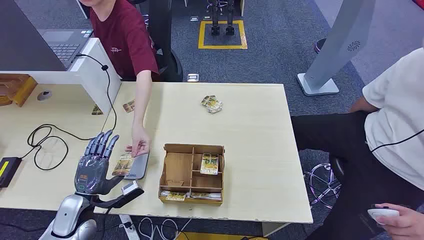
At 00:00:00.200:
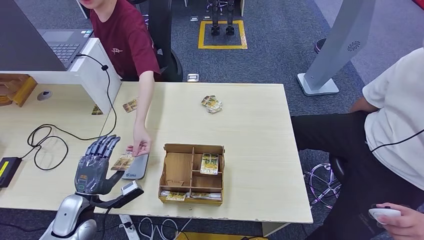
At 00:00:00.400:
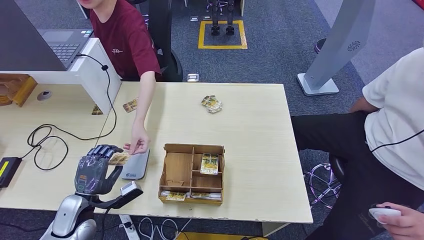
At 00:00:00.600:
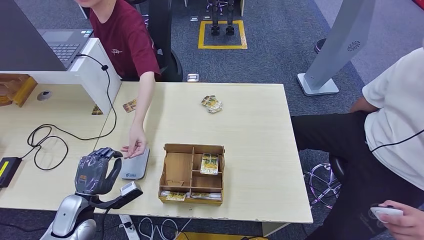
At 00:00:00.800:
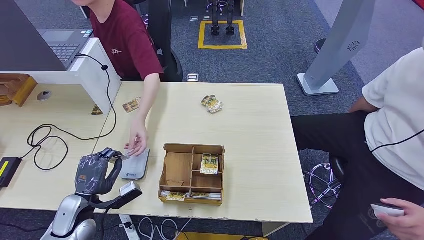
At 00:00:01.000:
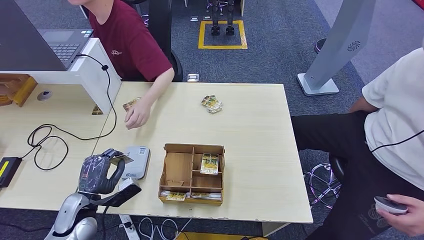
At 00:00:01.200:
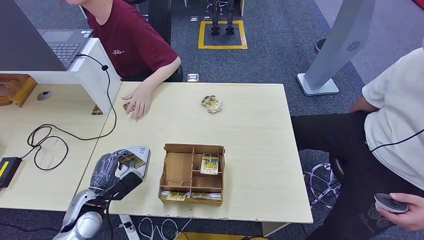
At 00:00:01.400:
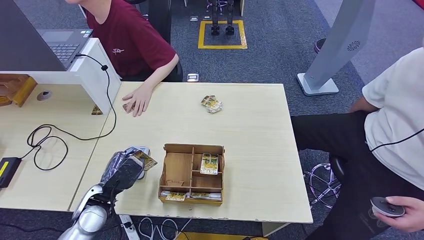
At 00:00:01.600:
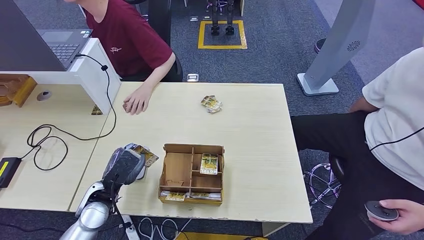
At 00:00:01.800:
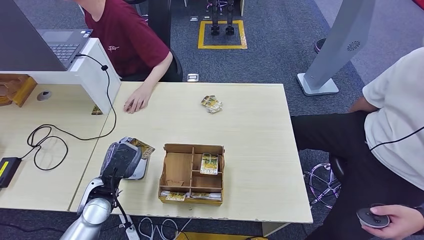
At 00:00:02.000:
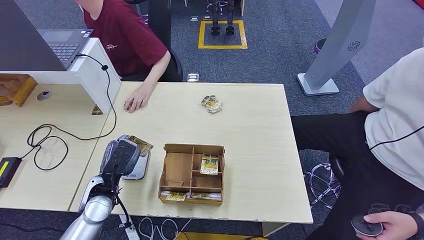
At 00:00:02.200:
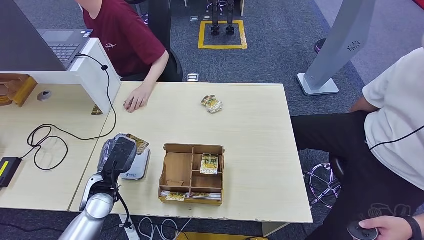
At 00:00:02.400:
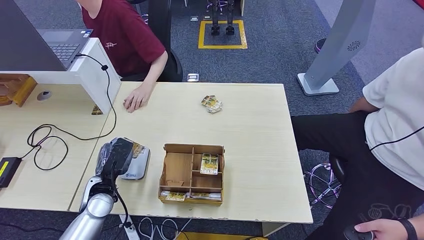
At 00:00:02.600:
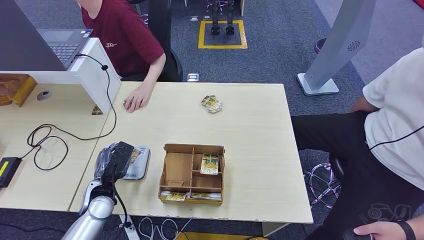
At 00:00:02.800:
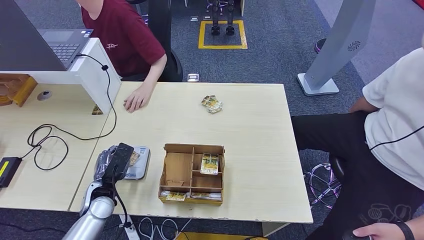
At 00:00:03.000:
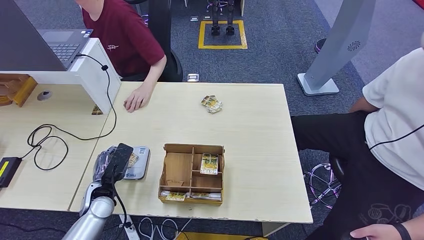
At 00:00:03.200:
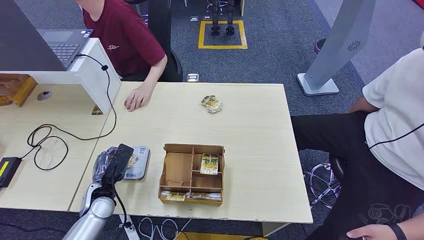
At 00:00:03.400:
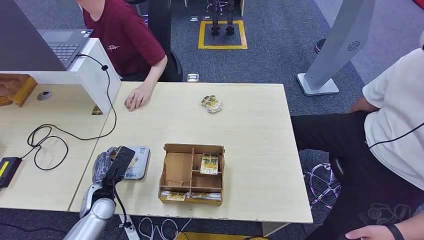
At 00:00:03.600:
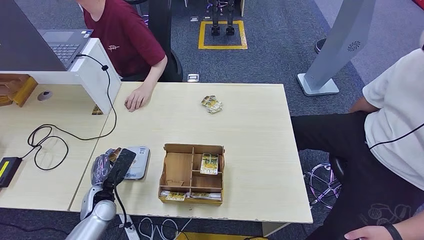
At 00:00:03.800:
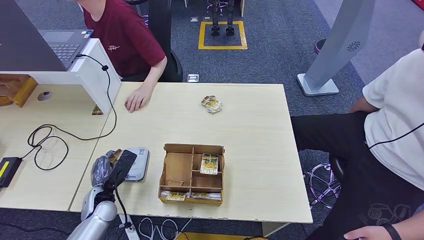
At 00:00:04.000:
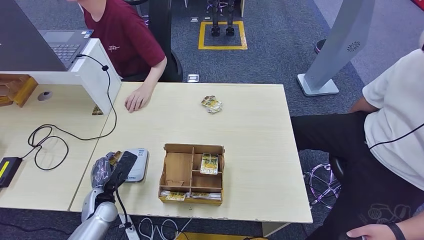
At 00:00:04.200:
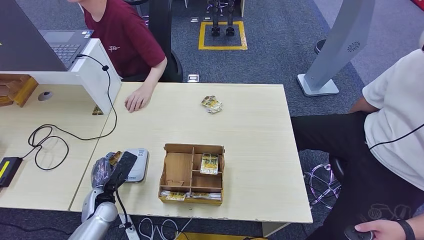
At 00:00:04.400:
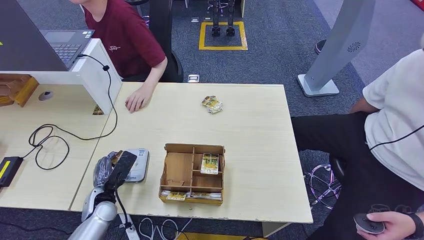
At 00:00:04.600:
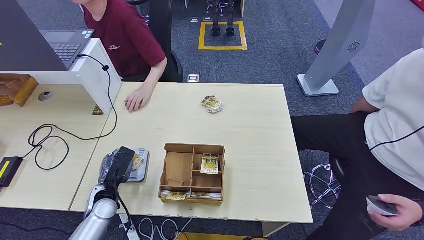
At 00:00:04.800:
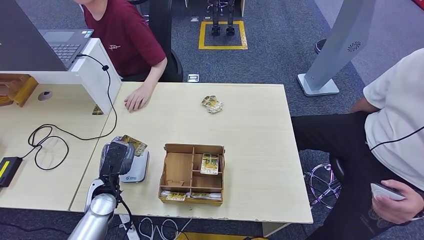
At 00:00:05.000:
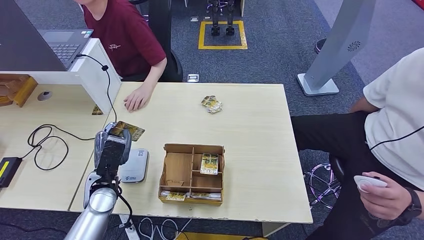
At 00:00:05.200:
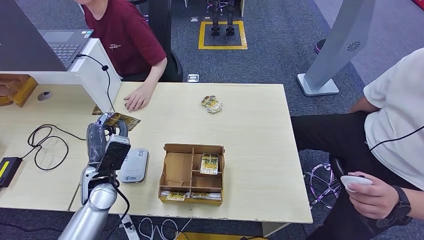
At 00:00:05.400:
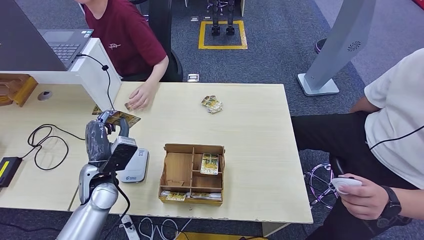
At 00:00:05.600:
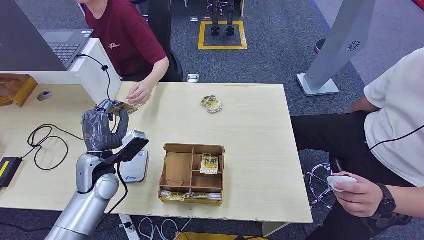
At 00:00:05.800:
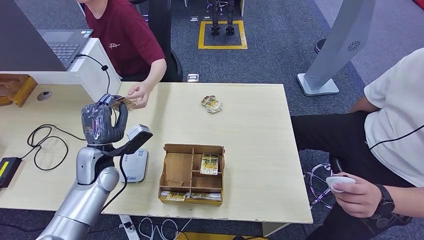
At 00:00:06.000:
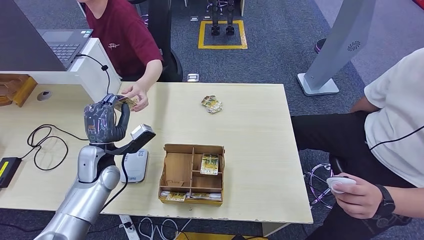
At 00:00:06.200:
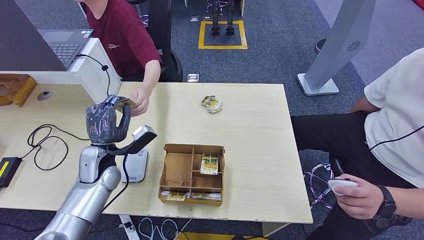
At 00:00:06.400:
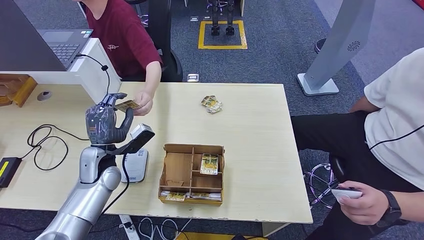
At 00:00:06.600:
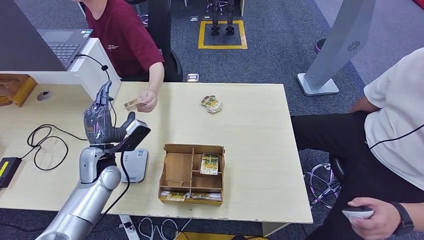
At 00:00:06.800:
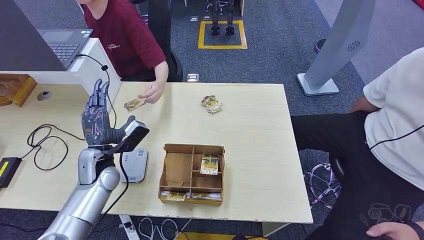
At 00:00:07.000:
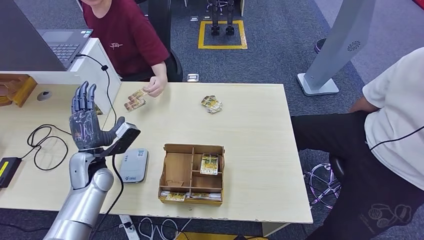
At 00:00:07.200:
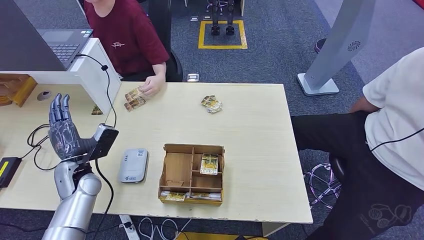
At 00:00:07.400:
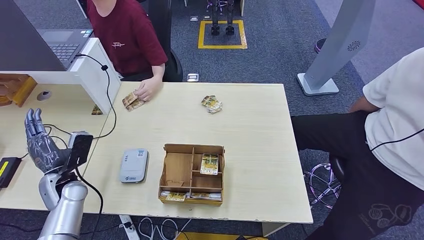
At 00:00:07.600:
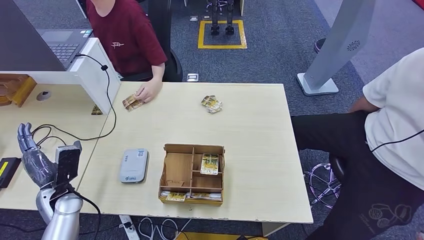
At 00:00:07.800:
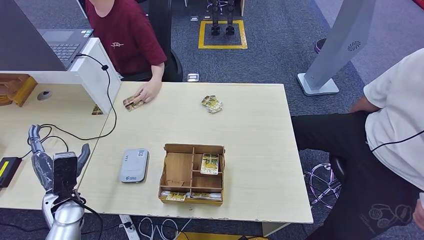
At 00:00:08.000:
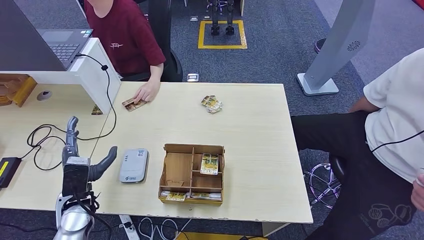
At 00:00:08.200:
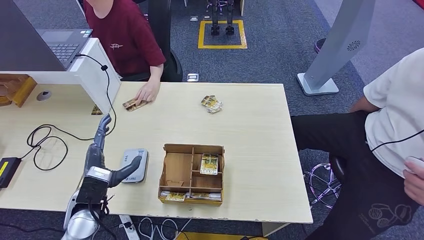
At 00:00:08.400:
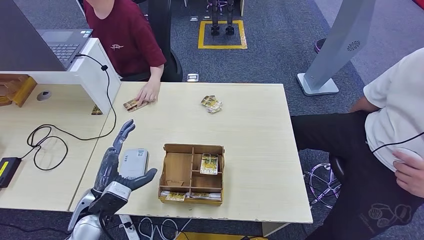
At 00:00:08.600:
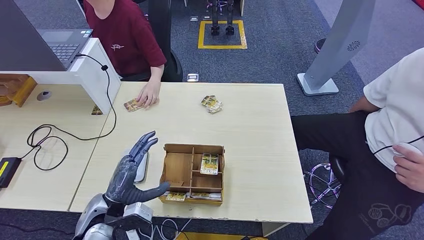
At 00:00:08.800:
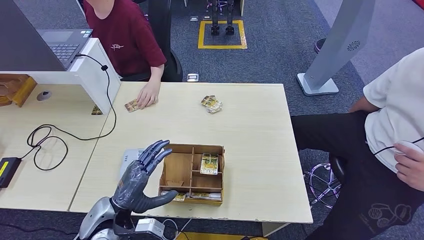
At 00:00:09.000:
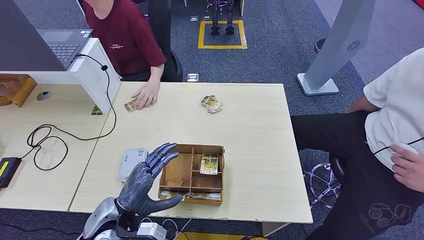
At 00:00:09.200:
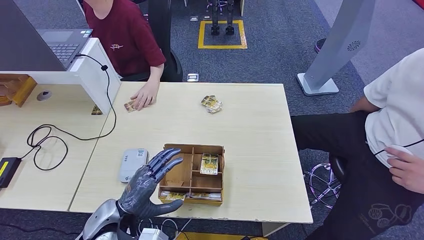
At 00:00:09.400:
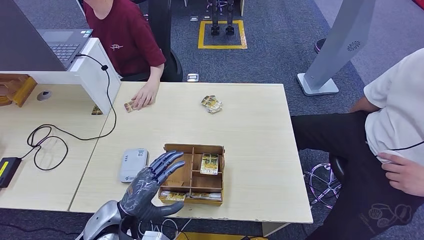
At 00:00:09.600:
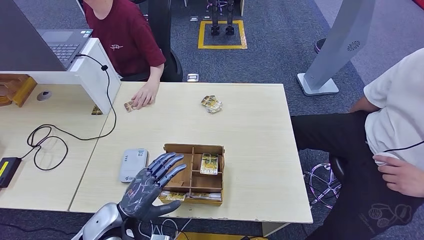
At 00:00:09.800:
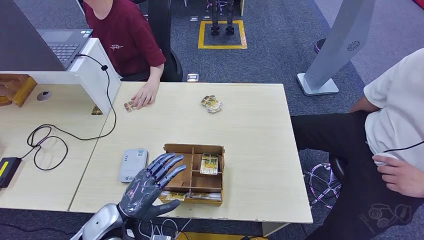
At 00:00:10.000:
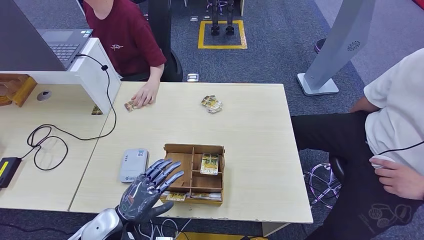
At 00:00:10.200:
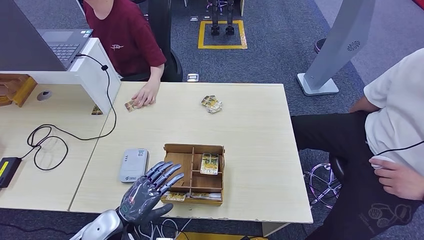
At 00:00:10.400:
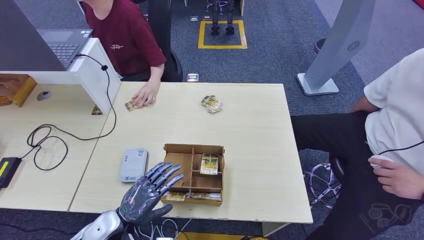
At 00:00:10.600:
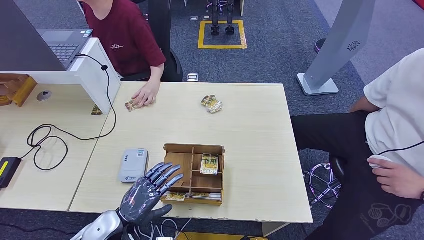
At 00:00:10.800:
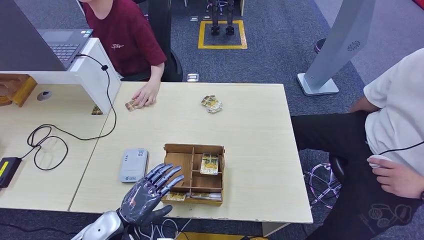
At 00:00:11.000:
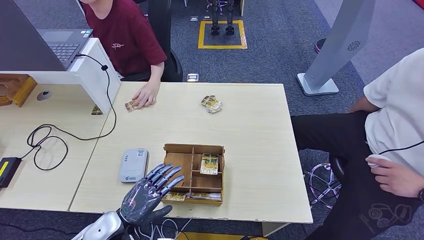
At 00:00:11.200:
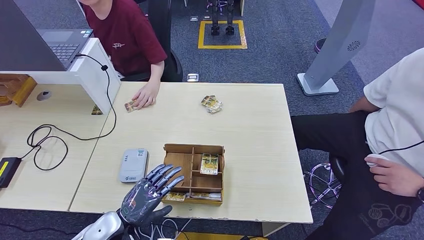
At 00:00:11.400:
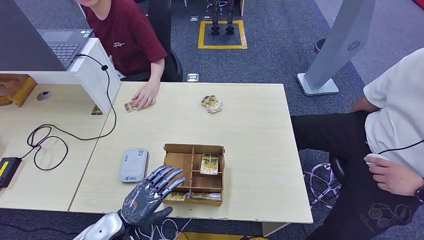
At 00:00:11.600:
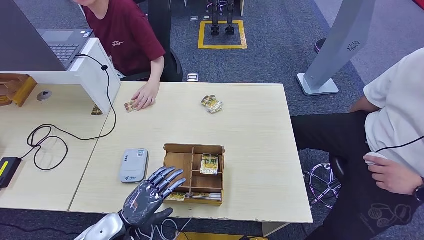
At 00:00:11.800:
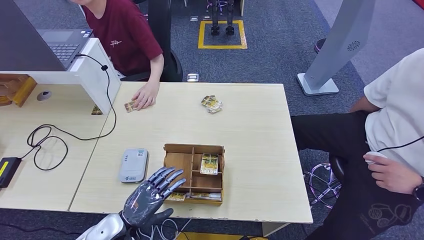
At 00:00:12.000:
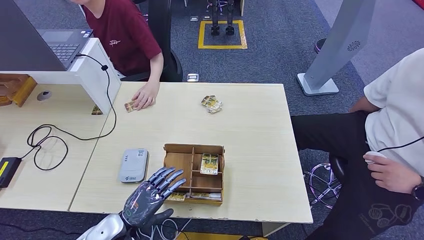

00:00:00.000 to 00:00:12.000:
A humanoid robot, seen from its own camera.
Step, 00:00:00.000 to 00:00:00.800: Take the ID card from the person's hand.
Step, 00:00:01.600 to 00:00:03.400: Place the ID card on the card reader.
Step, 00:00:04.800 to 00:00:07.000: Hand the ID card to the person.
00:00:01.600 to 00:00:03.000: The left hand changes place by about 5 cm.
00:00:03.000 to 00:00:04.400: There are only small adjustments of the hands.
00:00:04.400 to 00:00:06.000: The left hand goes approximately 15 cm upward and forward.
00:00:06.000 to 00:00:07.600: The left hand heads to the left, backward and downward, covering about 15 cm.
00:00:07.600 to 00:00:09.000: The left hand heads to the right, covering about 15 cm.
00:00:10.400 to 00:00:12.000: Both hands stay put.

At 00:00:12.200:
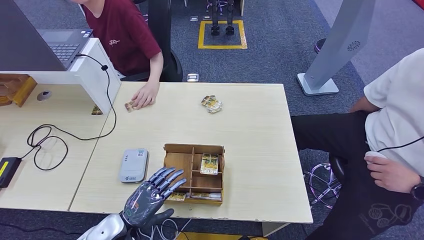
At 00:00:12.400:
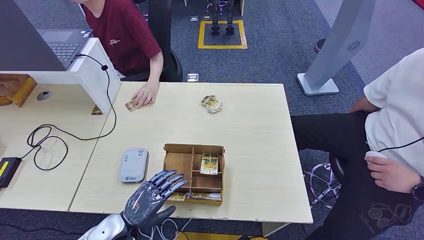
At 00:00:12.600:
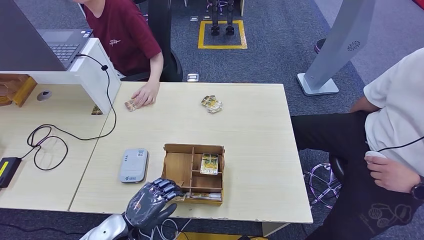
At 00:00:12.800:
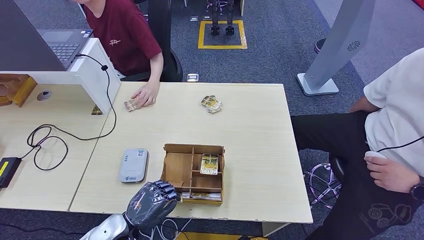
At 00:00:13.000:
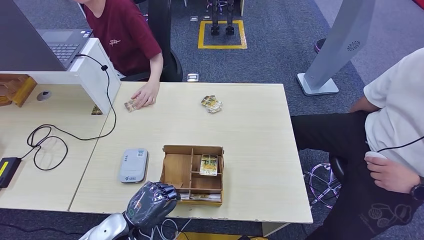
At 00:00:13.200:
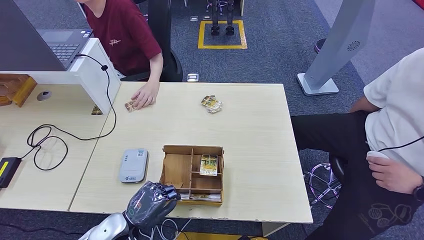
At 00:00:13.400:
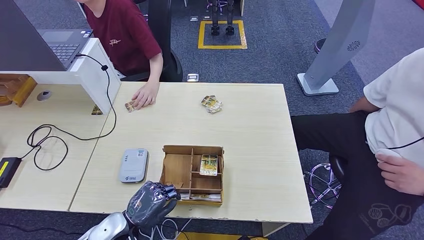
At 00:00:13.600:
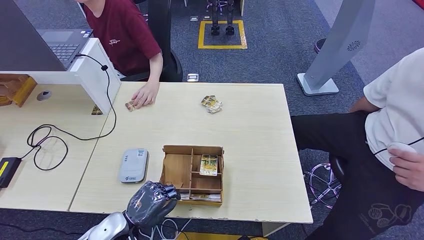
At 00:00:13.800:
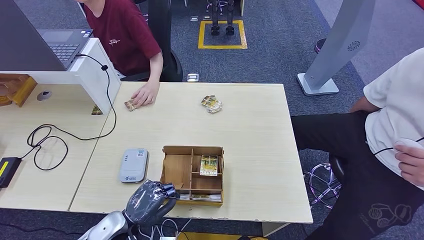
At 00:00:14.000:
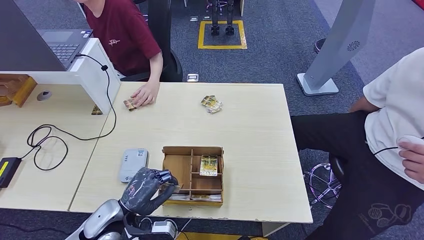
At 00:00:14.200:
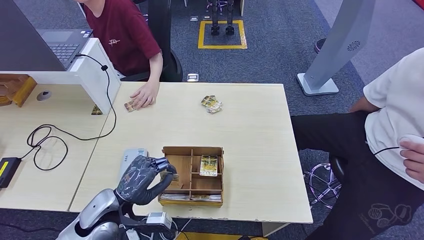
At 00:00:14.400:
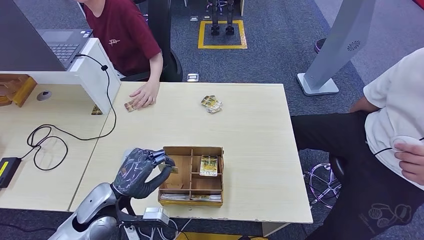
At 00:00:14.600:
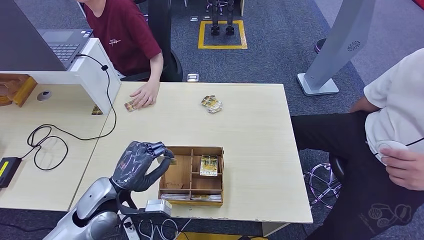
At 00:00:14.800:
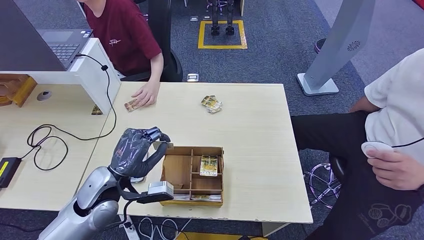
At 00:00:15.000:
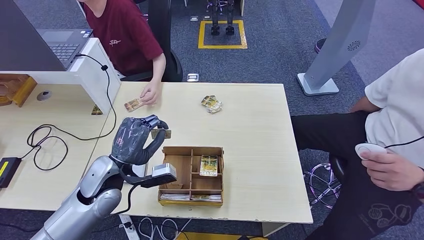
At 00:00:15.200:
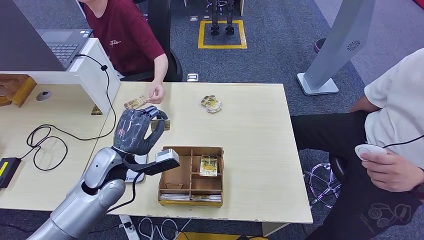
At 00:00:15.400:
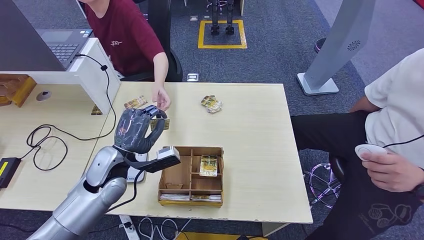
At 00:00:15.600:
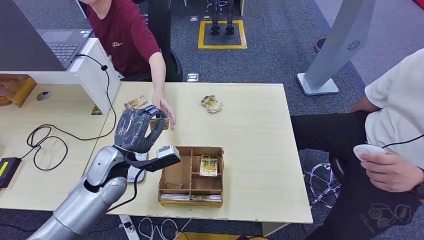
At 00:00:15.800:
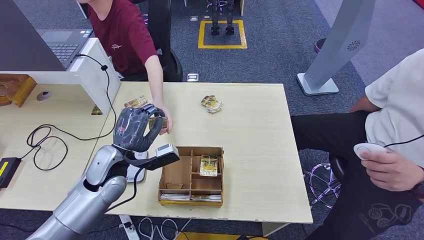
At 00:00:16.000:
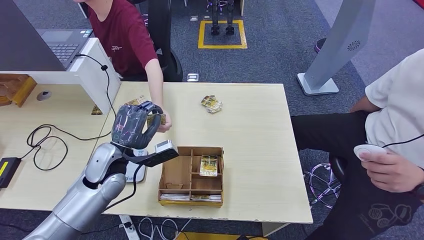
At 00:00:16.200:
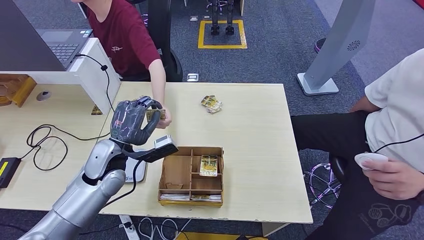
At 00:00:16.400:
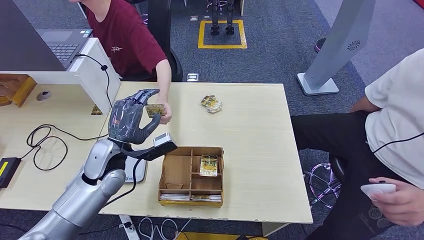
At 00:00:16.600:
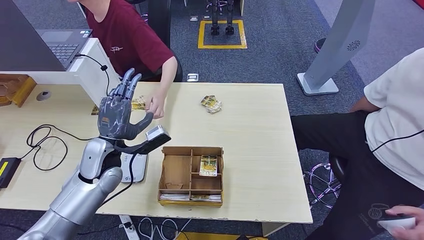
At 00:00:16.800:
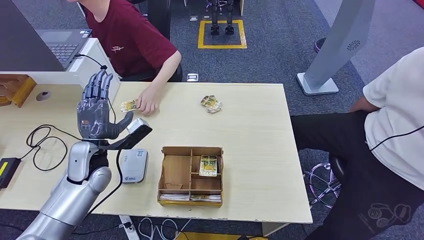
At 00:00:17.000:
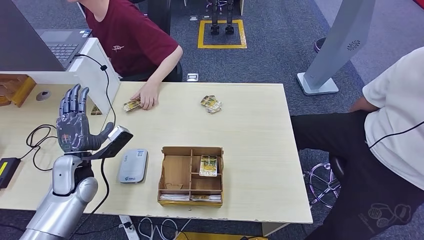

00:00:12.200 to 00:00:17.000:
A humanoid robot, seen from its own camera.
Step, 00:00:12.200 to 00:00:14.400: Pick up the room key from the key card box.
Step, 00:00:15.200 to 00:00:17.000: Hand the room key to the person.
00:00:12.200 to 00:00:13.800: The hands make only small movements.
00:00:13.800 to 00:00:15.400: The left hand heads upward and forward, covering some 15 cm.
00:00:15.400 to 00:00:17.000: The left hand travels to the left by some 10 cm.
